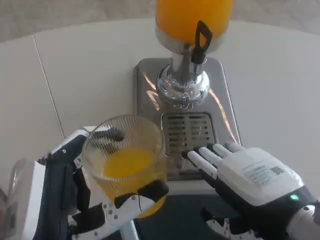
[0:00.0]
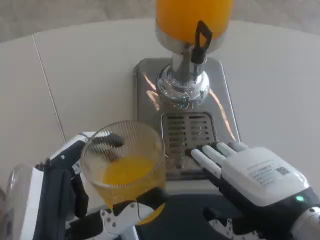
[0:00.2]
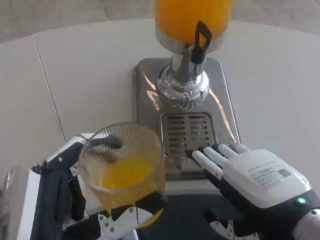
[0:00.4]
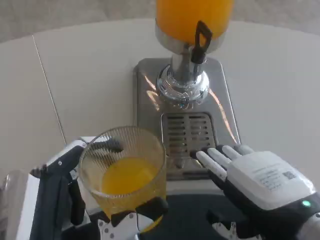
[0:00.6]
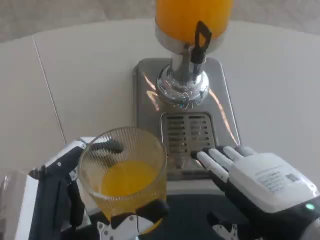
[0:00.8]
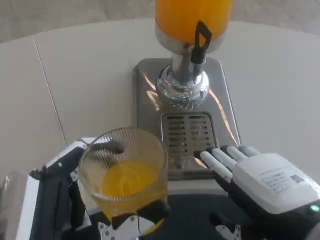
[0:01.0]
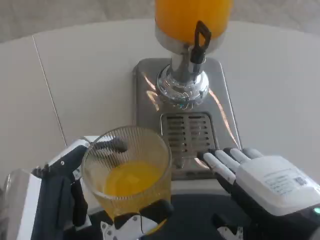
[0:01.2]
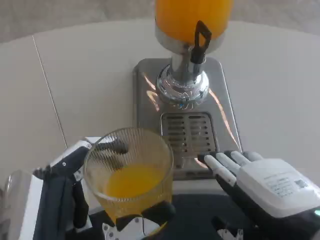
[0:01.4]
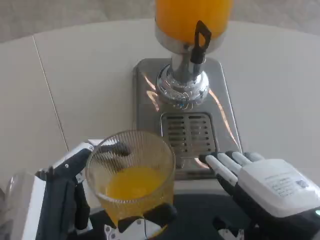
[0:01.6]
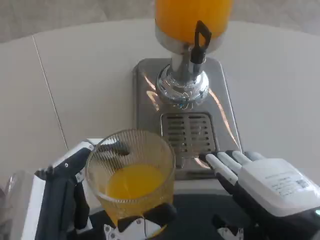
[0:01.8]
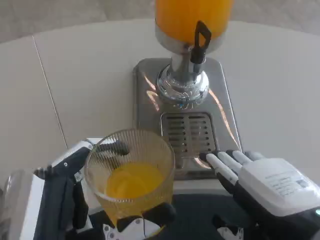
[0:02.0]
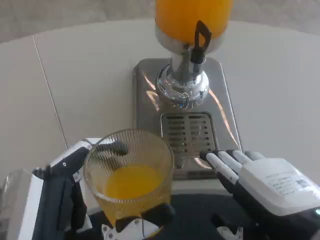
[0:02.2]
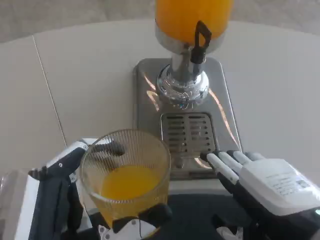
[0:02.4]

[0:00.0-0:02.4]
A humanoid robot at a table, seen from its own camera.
Task of the whole recording: Grasp the cup under the faucet to collect the drink, then remove the cup.
0:00.0 to 0:01.2: There are only small adjustments of the hands.
0:01.2 to 0:02.4: Both hands stay put.

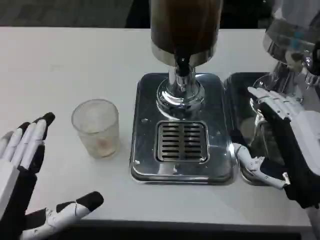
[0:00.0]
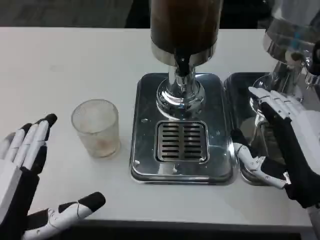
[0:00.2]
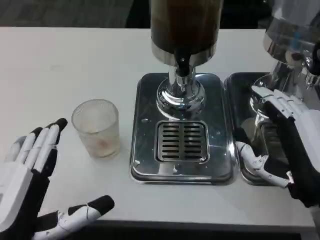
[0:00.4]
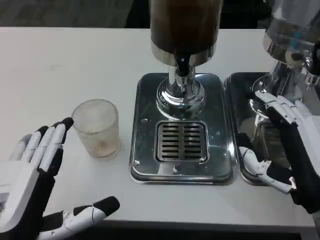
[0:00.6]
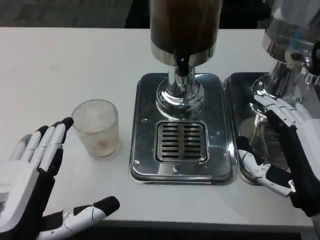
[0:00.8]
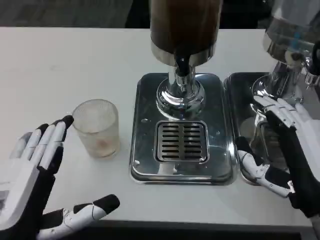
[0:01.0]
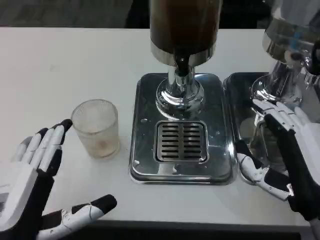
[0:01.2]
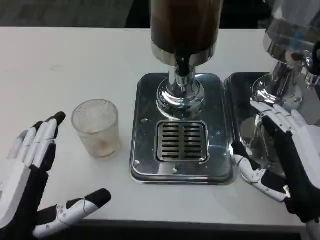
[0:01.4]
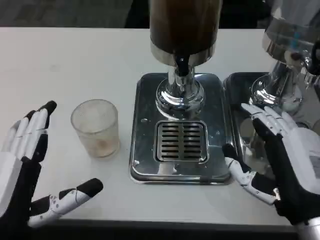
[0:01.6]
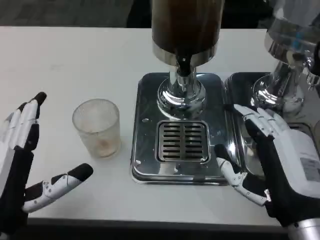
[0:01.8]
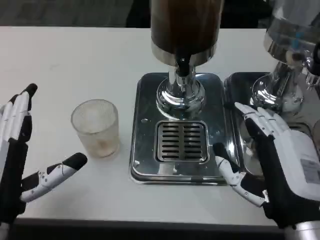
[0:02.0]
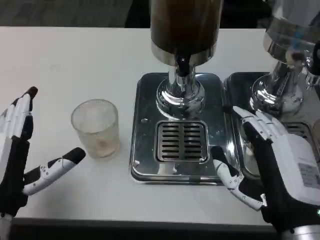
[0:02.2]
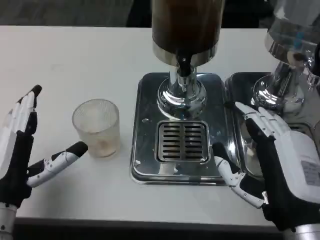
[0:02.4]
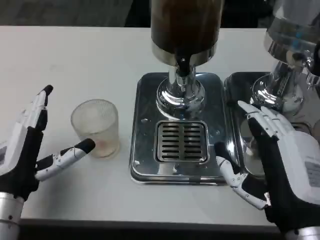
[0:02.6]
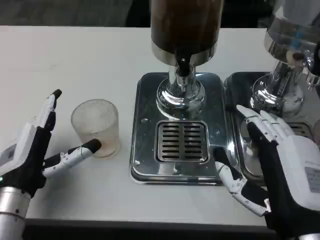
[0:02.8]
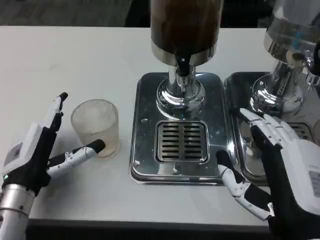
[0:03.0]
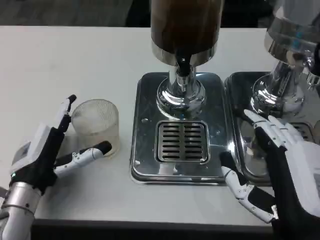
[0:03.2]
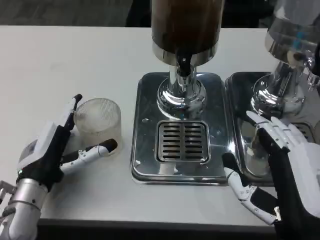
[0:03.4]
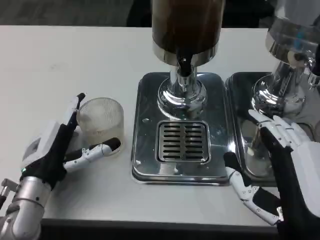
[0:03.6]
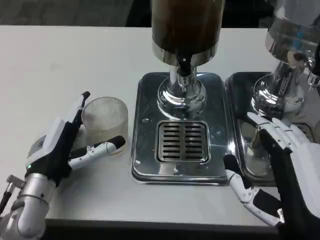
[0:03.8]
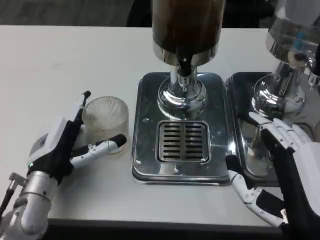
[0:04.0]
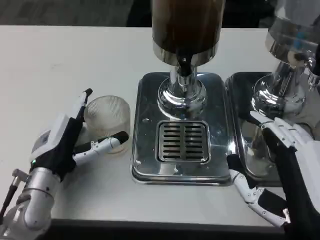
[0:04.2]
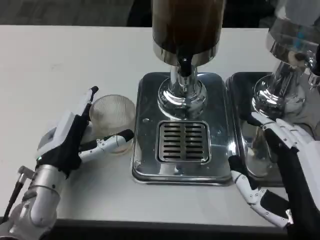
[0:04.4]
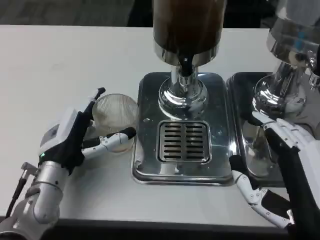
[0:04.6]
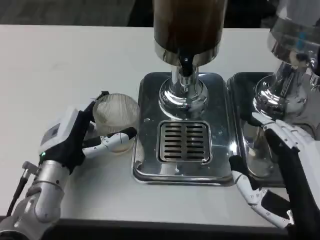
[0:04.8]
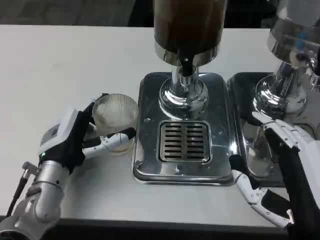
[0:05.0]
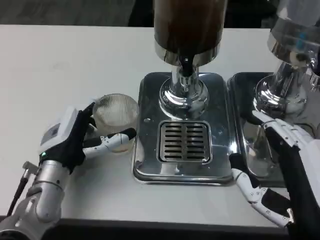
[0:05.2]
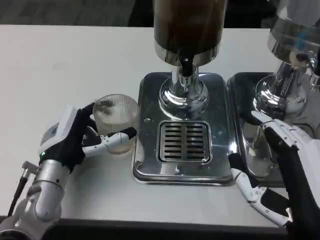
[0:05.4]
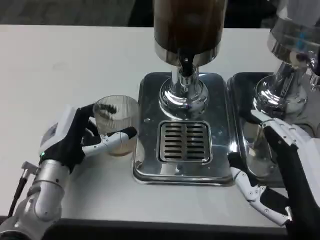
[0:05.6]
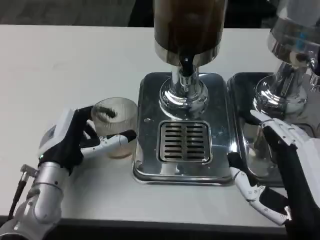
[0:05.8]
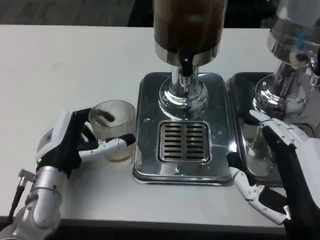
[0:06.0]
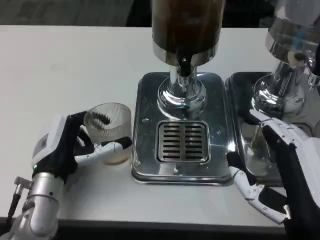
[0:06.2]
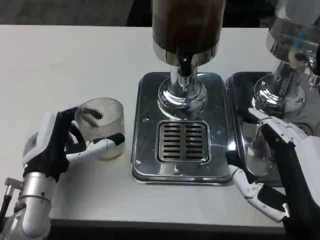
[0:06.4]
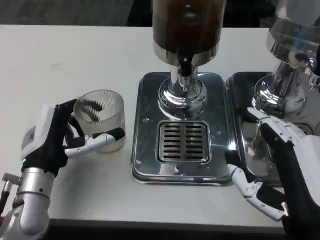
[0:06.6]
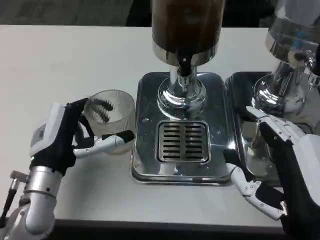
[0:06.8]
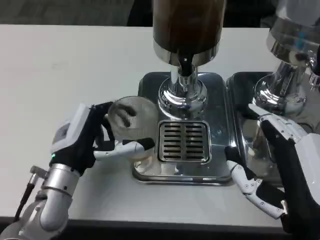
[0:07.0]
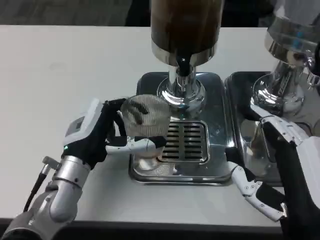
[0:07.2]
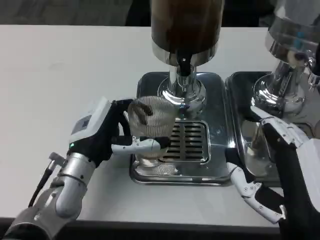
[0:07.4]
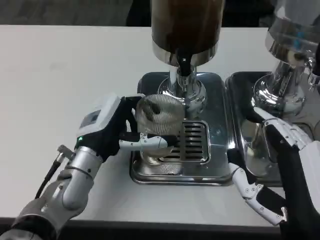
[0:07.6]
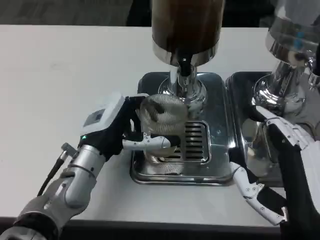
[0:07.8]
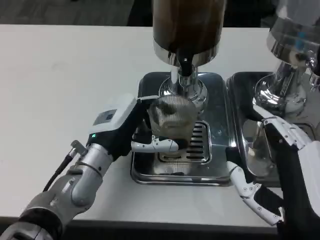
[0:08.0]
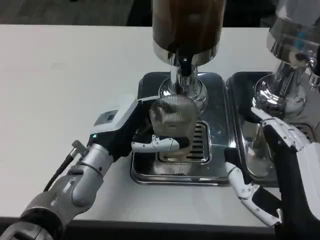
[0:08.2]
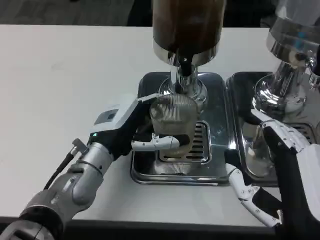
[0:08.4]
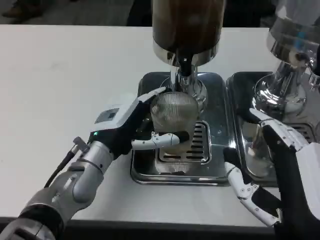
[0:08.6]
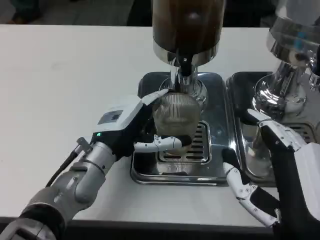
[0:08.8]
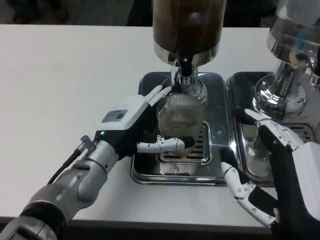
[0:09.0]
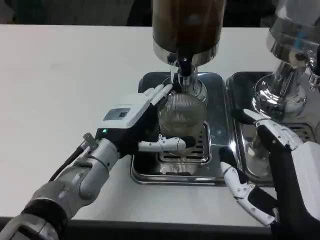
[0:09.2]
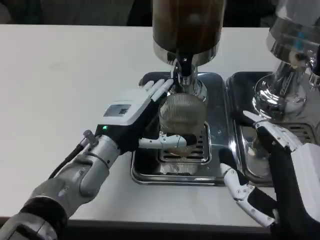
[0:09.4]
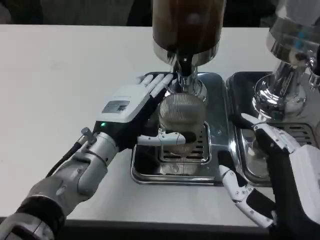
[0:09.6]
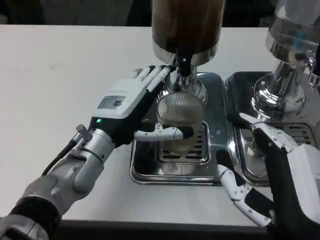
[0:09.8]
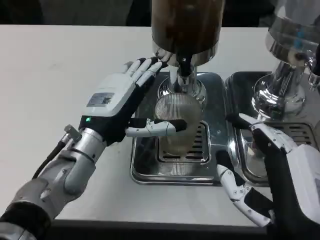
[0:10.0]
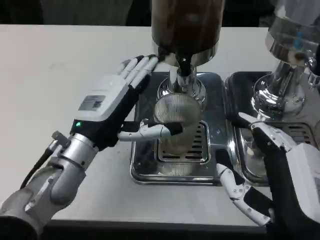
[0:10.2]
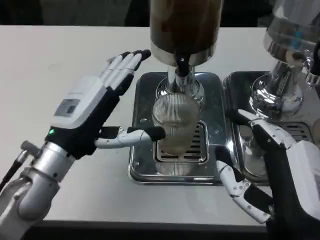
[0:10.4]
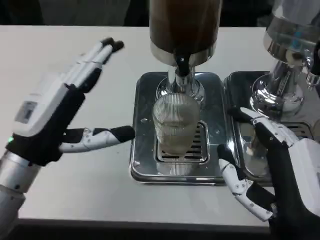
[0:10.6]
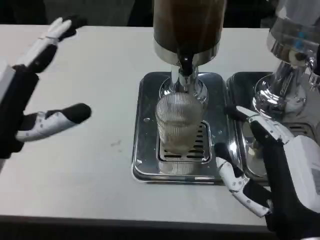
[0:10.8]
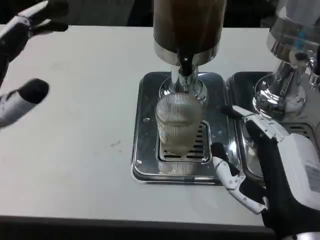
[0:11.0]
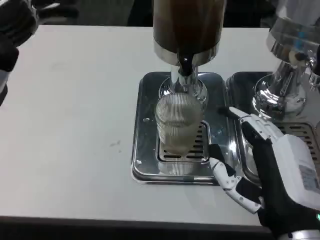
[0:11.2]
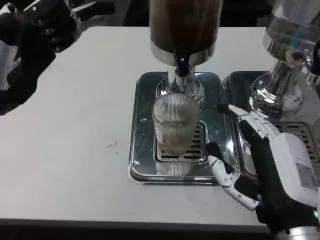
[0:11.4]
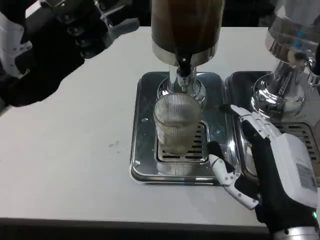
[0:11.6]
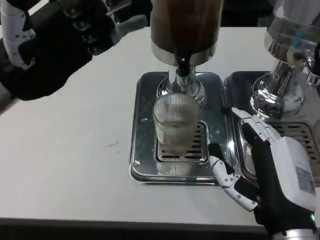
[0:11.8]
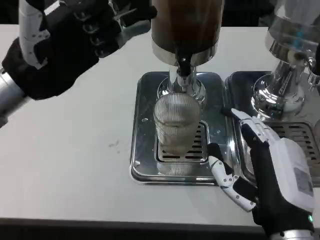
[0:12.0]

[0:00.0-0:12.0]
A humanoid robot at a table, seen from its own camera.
Task of the whole recording: Grasp the cup under the faucet to collect the drink, then remove the cup.
0:00.0 to 0:01.6: The hands make only small movements.
0:01.6 to 0:03.0: The left hand goes about 10 cm forward.
0:03.0 to 0:04.4: The left hand changes place by roughly 5 cm.
0:04.4 to 0:06.0: There are only small adjustments of the hands.
0:06.0 to 0:07.6: The left hand shifts by roughly 5 cm.
0:09.0 to 0:10.4: The left hand travels to the left by roughly 5 cm.
0:10.4 to 0:12.0: The left hand moves upward, forward and to the left, roughly 15 cm.

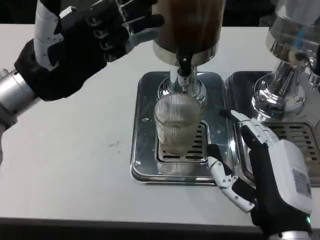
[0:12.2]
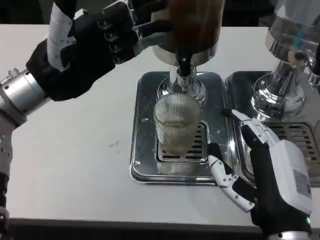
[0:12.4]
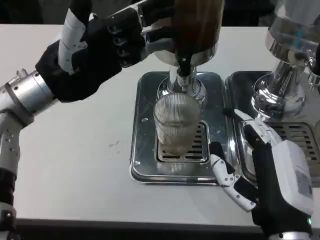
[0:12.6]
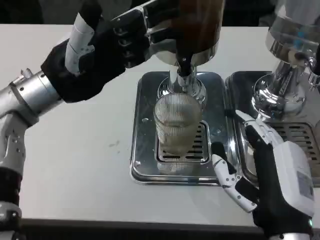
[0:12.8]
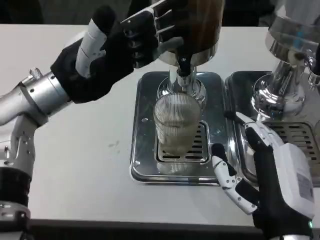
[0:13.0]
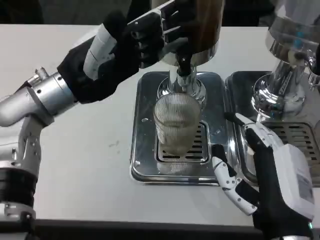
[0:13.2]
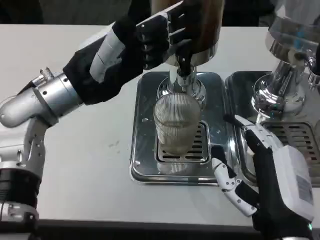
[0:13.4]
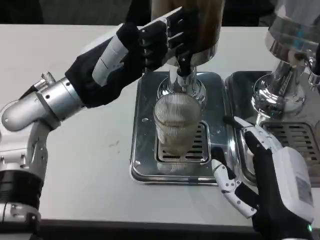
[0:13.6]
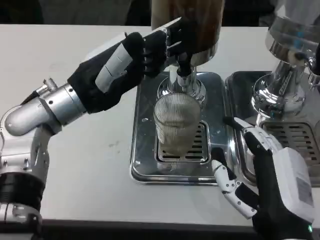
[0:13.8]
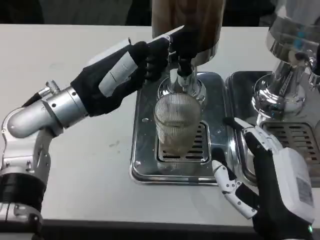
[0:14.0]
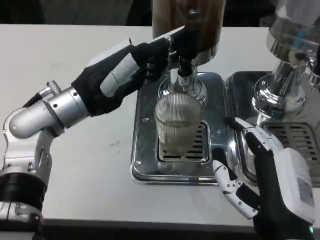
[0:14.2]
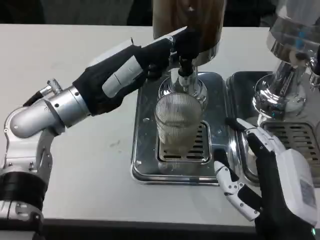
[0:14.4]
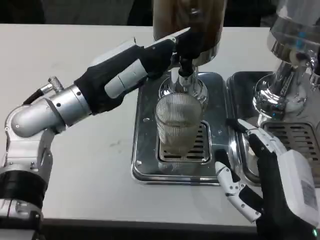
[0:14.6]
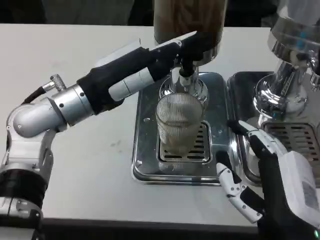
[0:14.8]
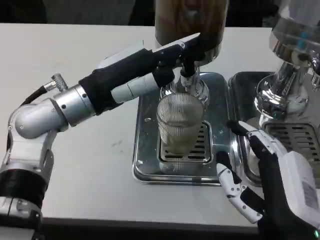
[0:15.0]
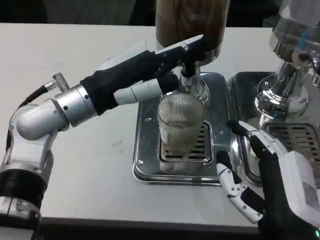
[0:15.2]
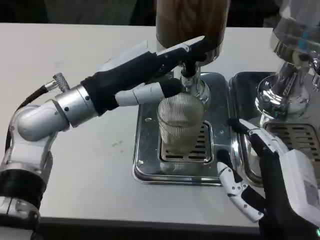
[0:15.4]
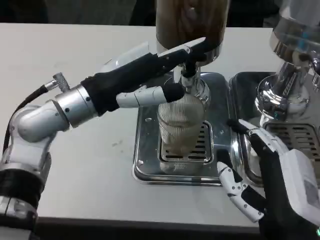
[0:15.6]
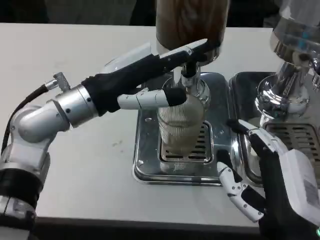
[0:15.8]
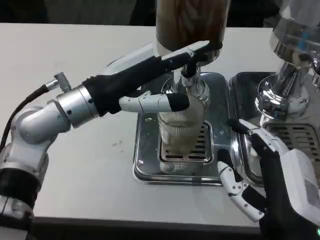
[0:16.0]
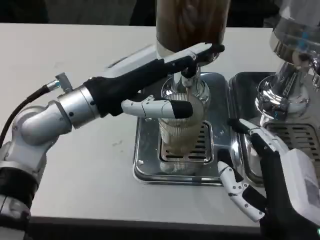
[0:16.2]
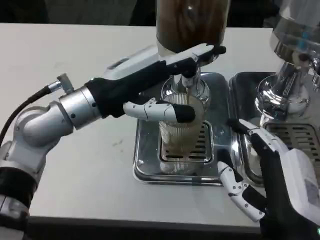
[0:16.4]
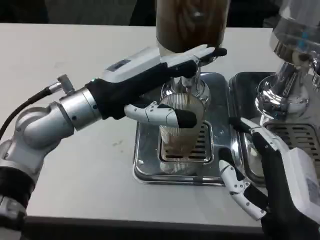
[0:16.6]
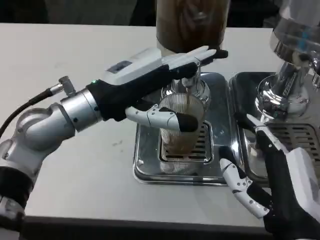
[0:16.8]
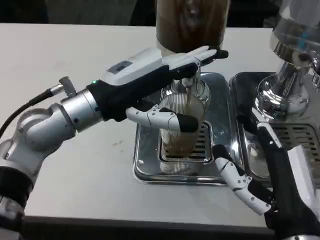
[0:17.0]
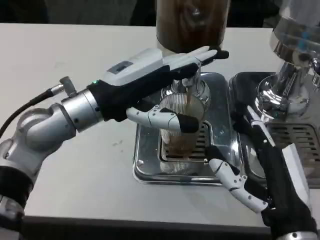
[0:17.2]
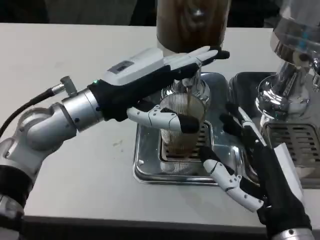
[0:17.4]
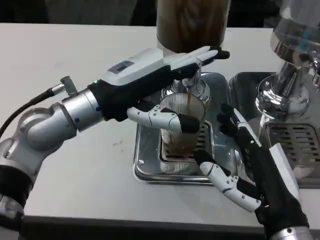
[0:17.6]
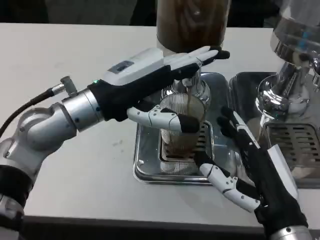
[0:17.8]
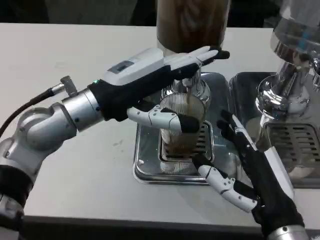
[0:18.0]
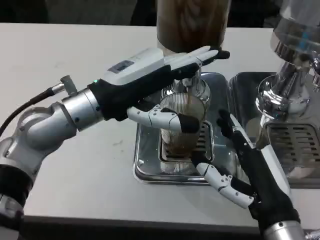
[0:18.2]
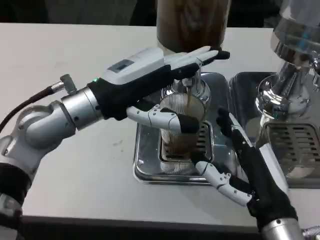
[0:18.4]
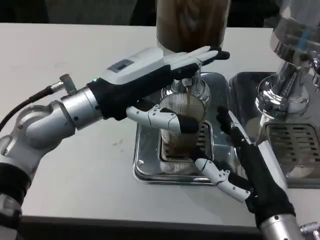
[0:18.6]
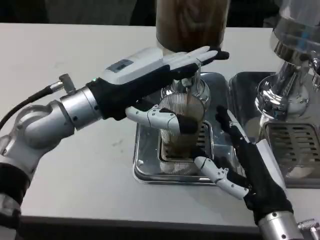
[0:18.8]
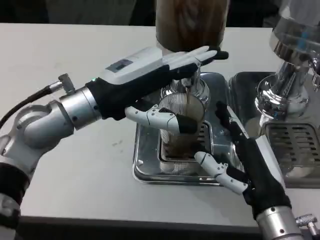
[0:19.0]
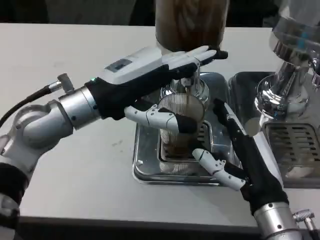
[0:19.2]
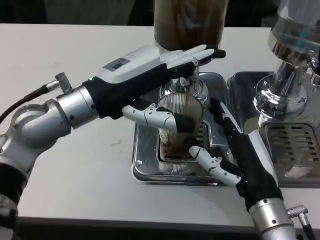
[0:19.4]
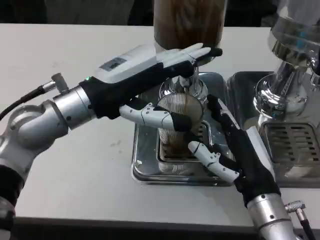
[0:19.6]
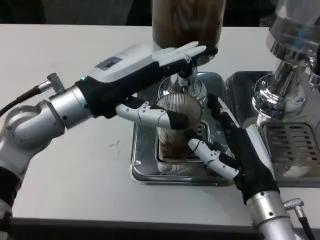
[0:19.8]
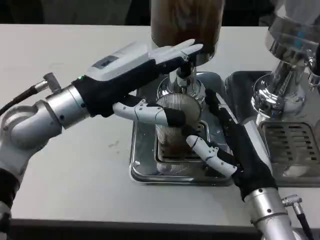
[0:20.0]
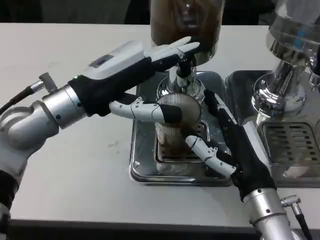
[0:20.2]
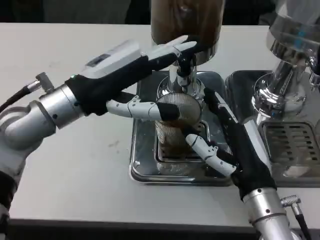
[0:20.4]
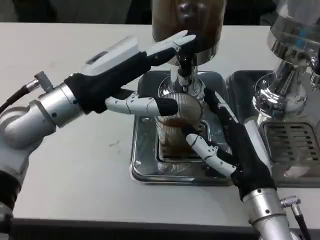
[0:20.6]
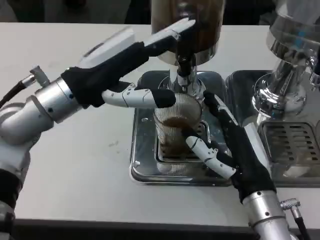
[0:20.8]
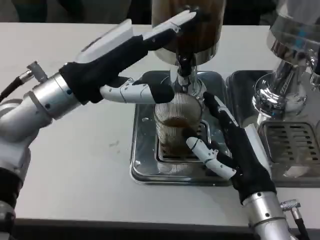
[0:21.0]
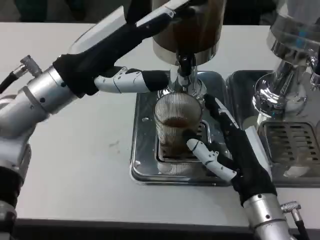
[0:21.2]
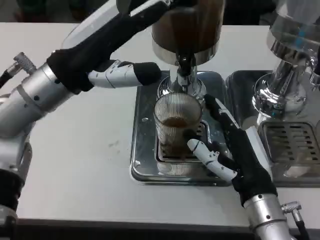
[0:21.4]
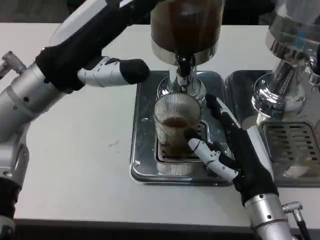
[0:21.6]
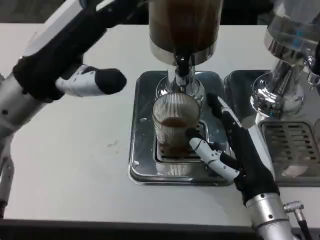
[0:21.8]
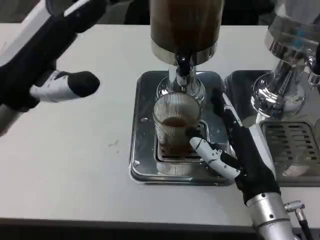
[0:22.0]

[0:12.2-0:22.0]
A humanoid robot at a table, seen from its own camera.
Task of the whole recording: Grasp the cup under the faucet to collect the drink, then remove the cup.
0:12.2 to 0:13.6: The left hand changes place by approximately 5 cm.
0:17.8 to 0:19.2: The right hand changes place by roughly 5 cm.
0:20.6 to 0:22.0: The left hand moves about 5 cm.
